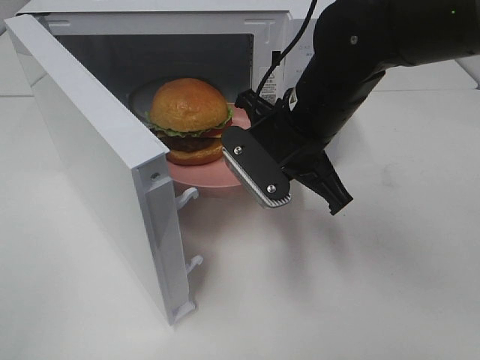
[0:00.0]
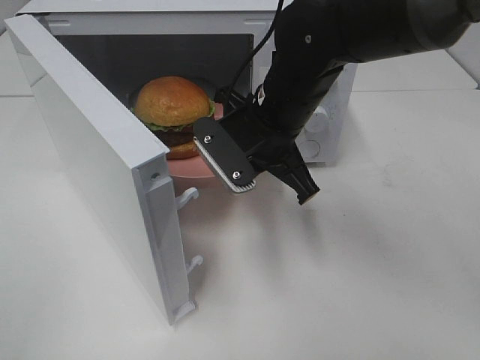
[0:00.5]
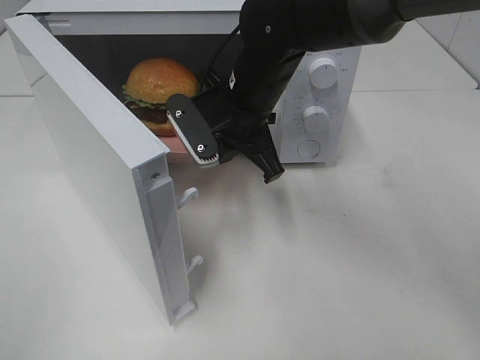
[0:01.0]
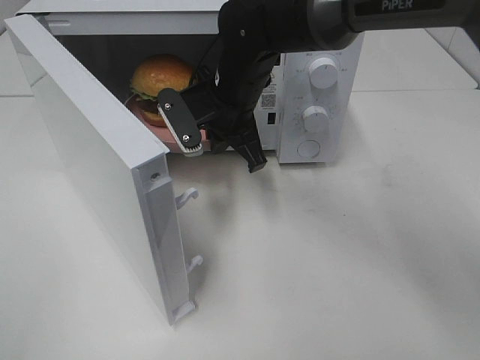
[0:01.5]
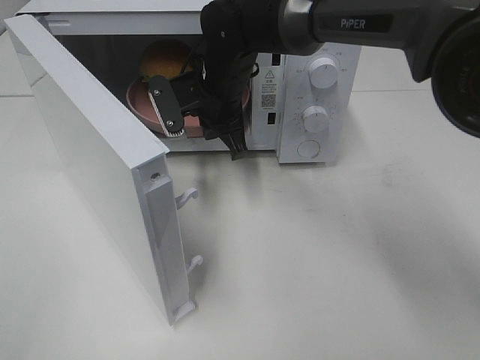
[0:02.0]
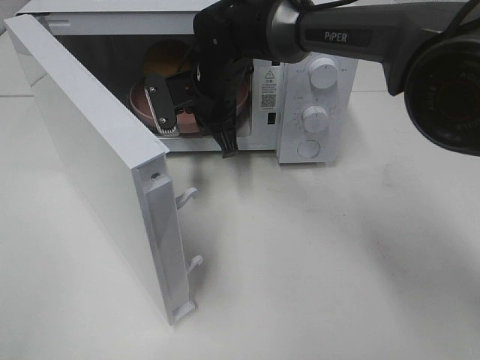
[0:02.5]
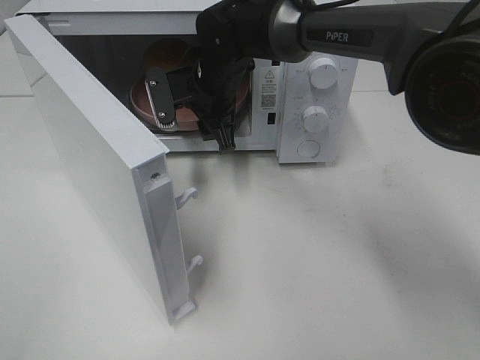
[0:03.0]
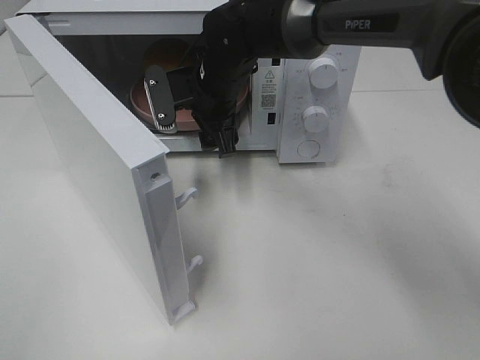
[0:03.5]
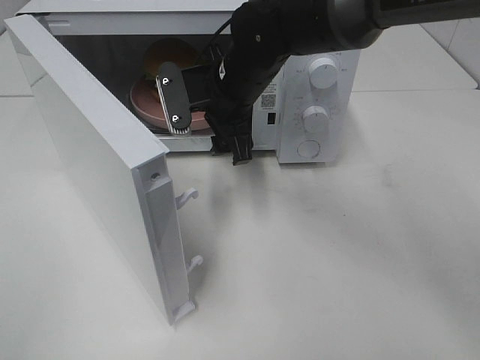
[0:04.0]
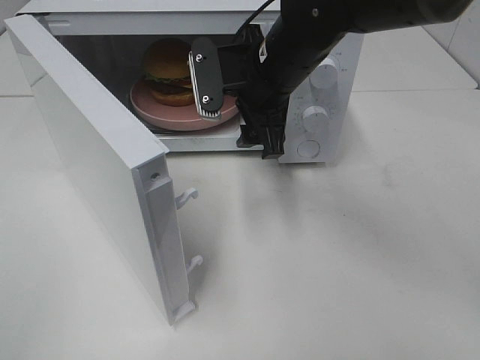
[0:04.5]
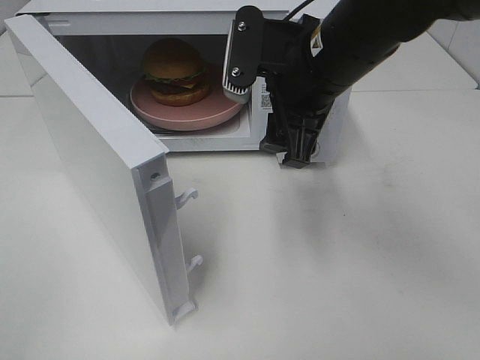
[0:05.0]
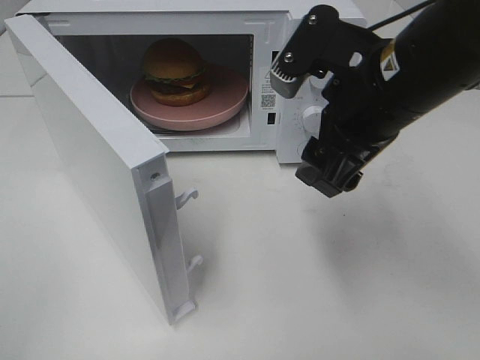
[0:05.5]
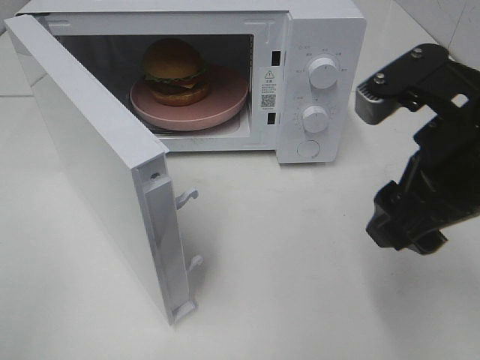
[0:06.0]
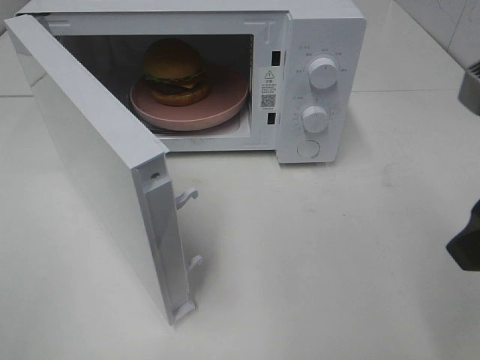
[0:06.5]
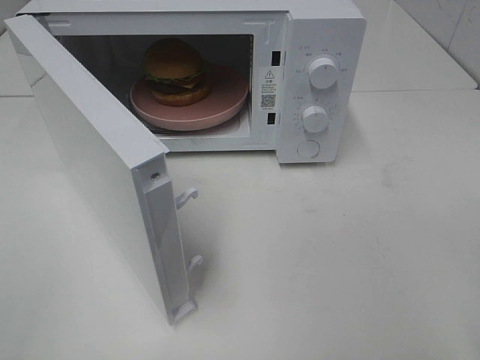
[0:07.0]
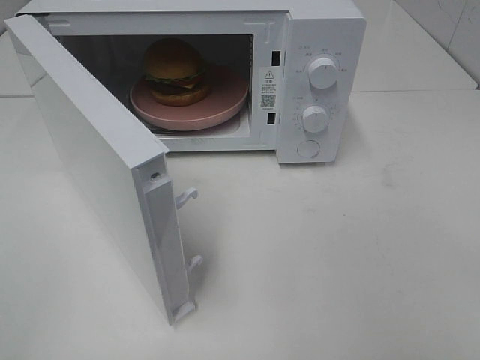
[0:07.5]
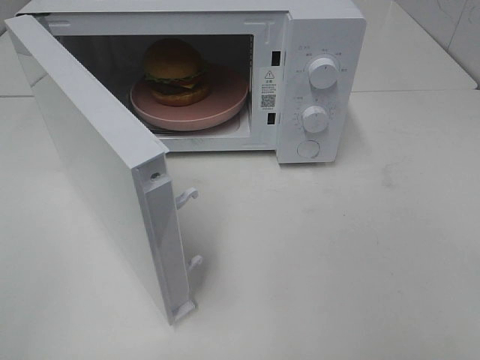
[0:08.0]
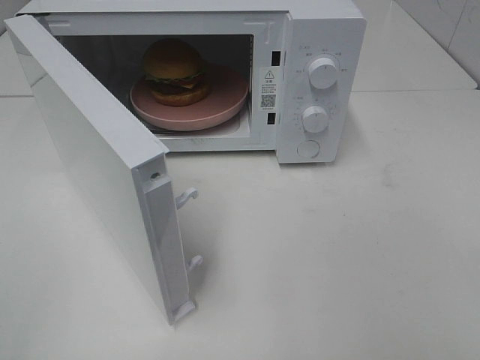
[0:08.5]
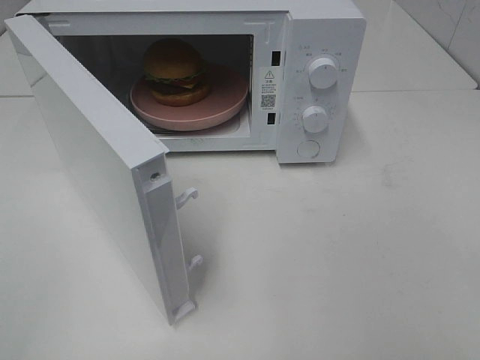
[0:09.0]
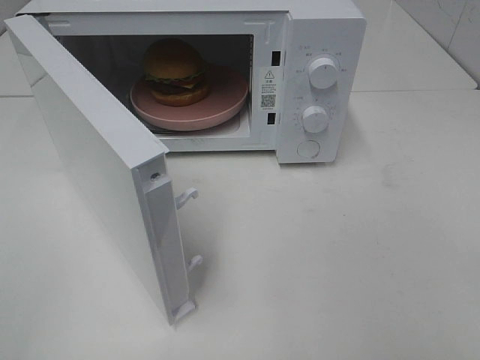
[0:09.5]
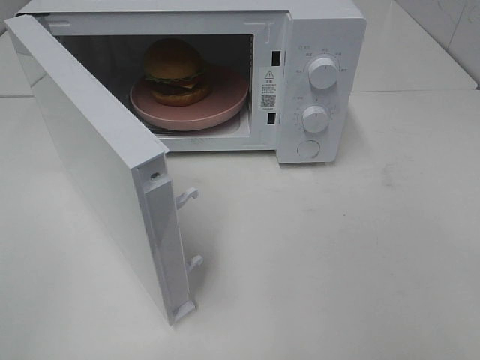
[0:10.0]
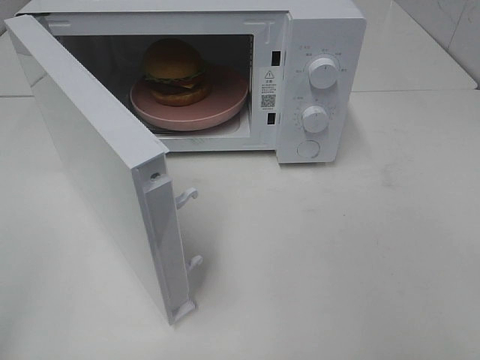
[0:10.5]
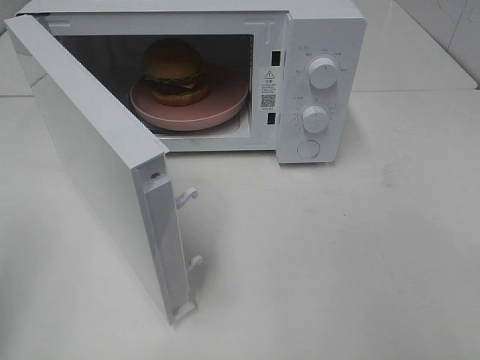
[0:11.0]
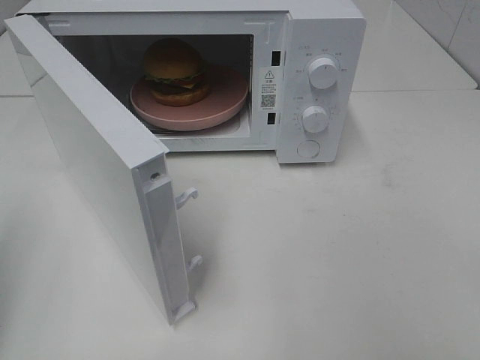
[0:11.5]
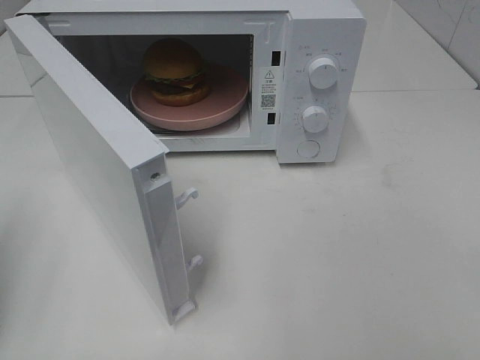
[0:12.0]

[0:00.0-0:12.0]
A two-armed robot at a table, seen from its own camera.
Task of the whole recording: Heat the burger.
Step, 0:00.0 to 0:02.5: Right hand: place the plate in the microwave.
0:00.0 to 0:02.0: The right gripper goes roughly 15 cm forward and to the left.
0:02.0 to 0:04.0: The right gripper moves some 5 cm, and opens.
0:04.0 to 0:06.0: The right gripper heads backward and to the right, covering about 25 cm.
0:06.0 to 0:08.0: The right gripper travels backward and to the right by roughly 20 cm.
0:08.0 to 0:10.0: Neither gripper changes place.

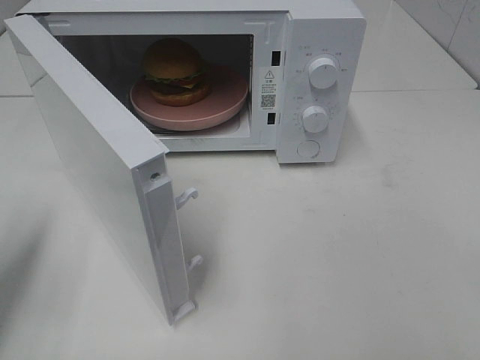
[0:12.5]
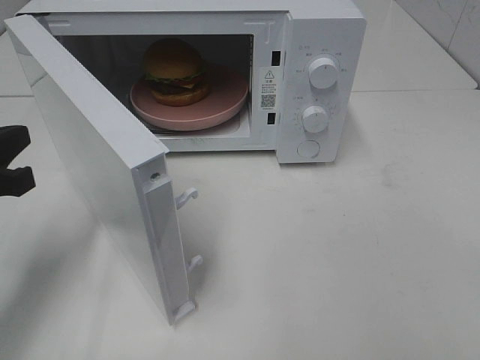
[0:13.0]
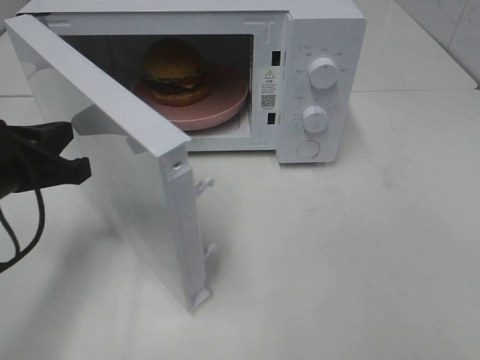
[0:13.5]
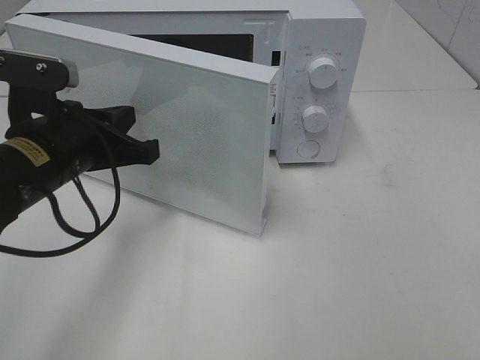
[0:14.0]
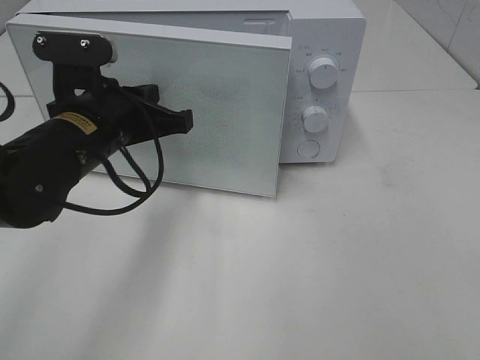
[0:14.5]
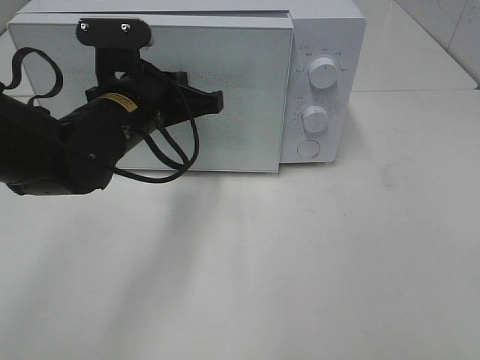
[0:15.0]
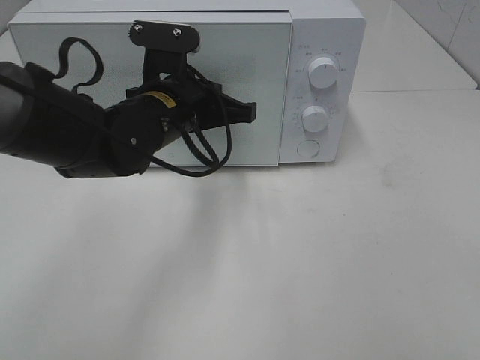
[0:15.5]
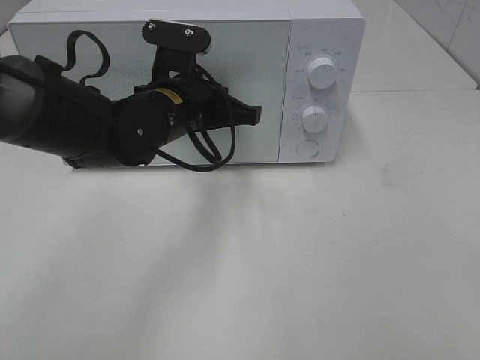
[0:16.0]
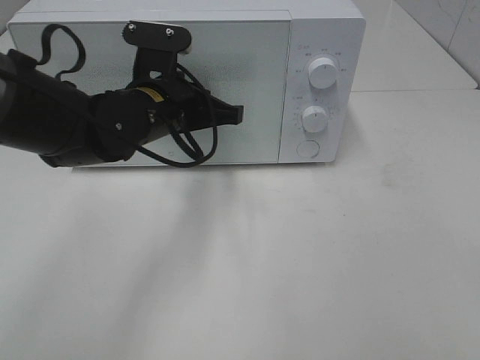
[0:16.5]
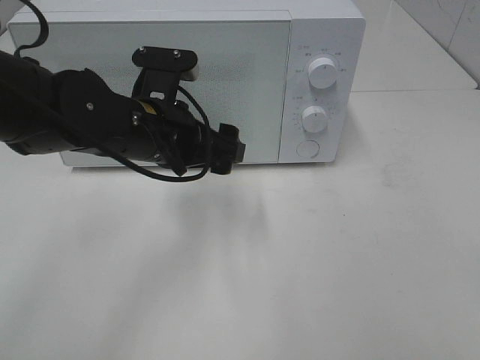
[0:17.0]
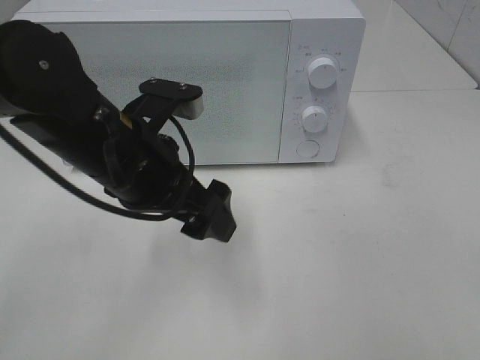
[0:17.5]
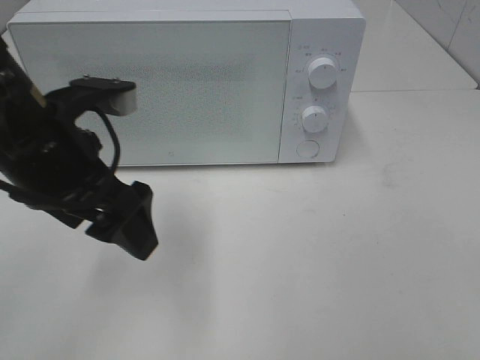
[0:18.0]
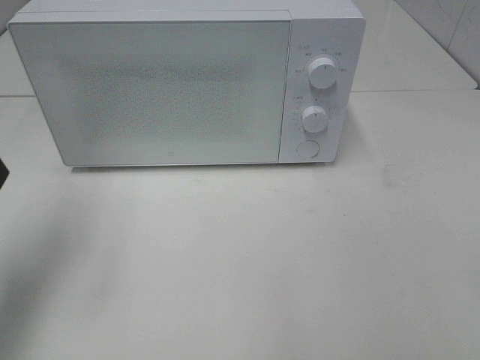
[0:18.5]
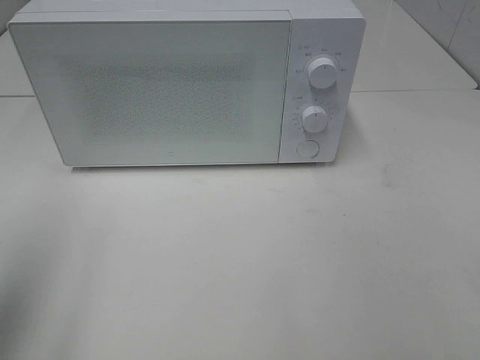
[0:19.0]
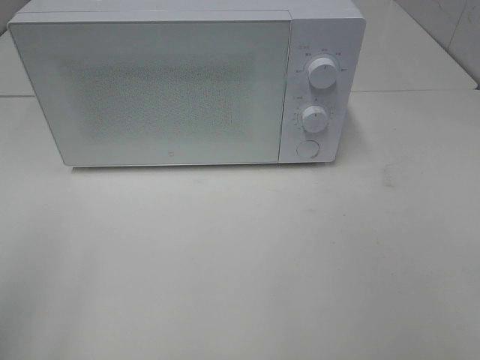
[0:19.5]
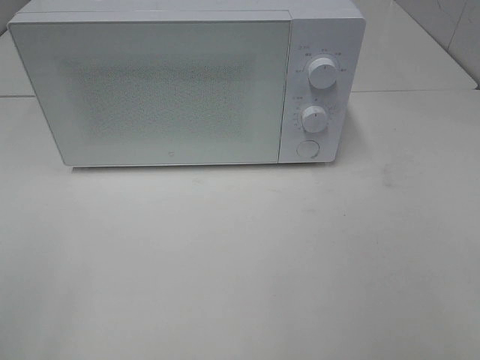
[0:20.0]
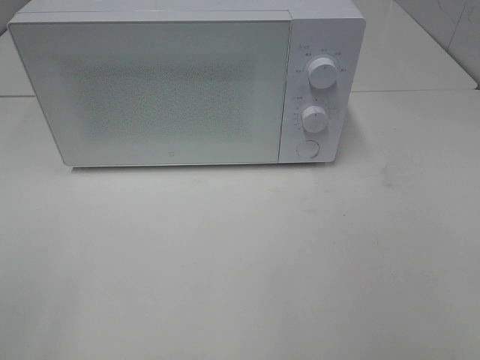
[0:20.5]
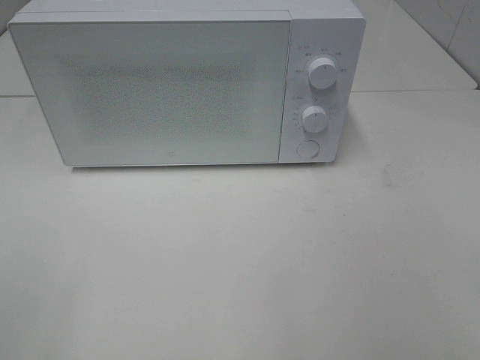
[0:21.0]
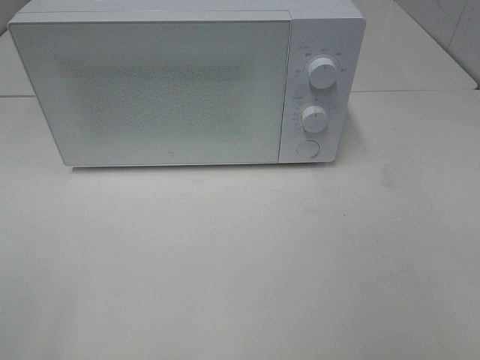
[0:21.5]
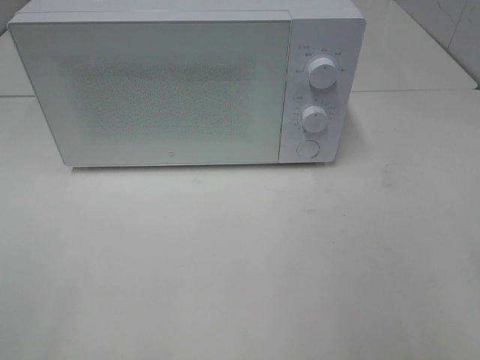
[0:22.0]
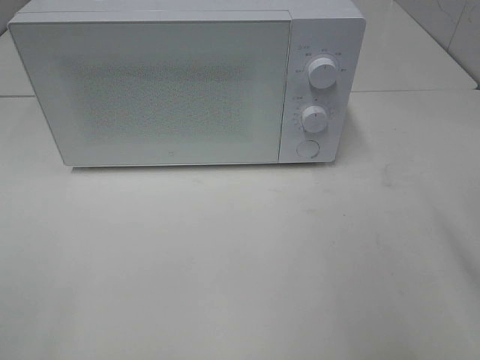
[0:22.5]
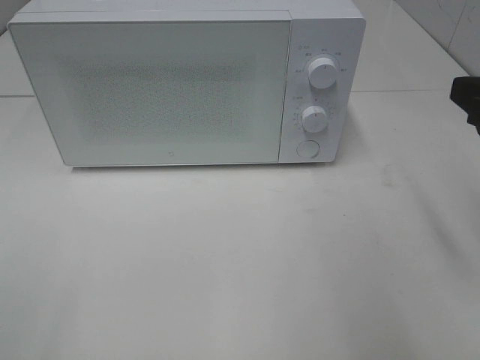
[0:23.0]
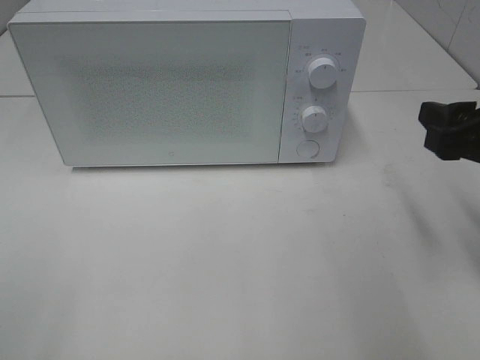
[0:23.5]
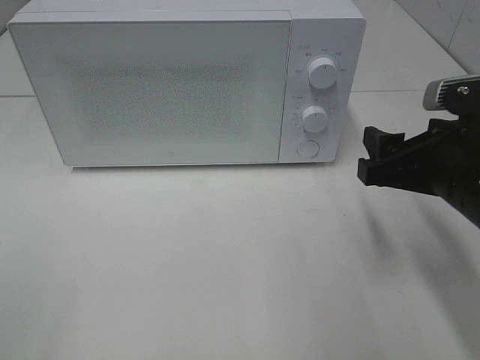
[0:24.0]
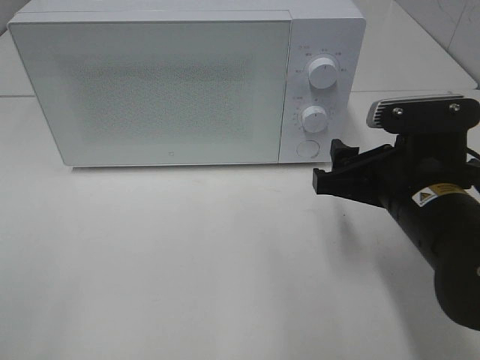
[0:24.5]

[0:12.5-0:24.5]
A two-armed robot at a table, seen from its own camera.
Task of the whole recording: Heat the burger.
Step, 0:12.5 to 0:16.5: Left hand: close the microwave door.
0:12.5 to 0:14.5: The left gripper moves to the right and forward, roughly 20 cm.
0:14.5 to 0:16.5: The left gripper moves to the right, roughly 5 cm.
0:16.5 to 0:18.5: The left gripper moves to the left, upward and backward, approximately 25 cm, and opens its fingers.
0:18.5 to 0:20.5: The left gripper travels backward by roughly 25 cm.
0:22.5 to 0:24.5: The right gripper moves downward, to the left and forward, roughly 15 cm.

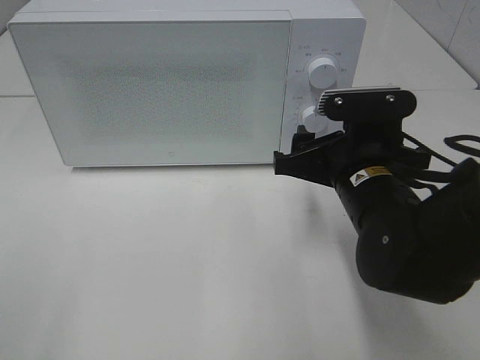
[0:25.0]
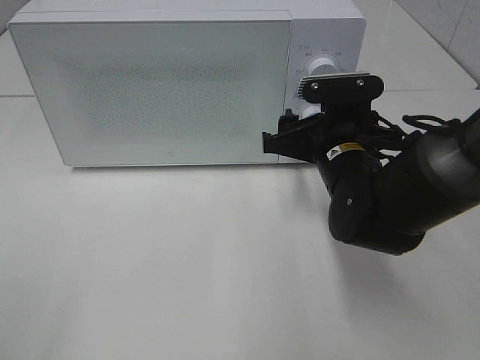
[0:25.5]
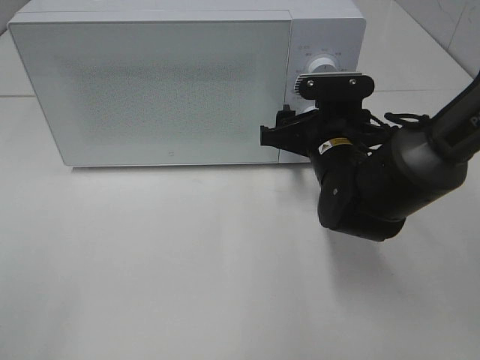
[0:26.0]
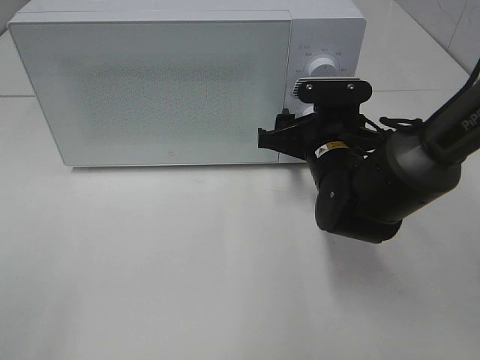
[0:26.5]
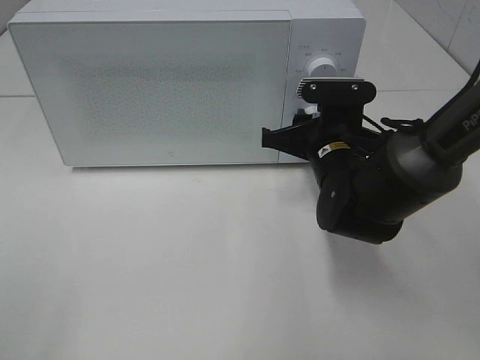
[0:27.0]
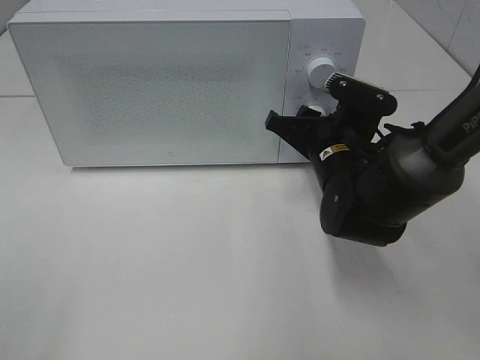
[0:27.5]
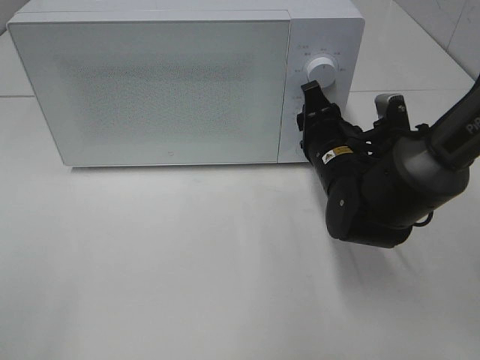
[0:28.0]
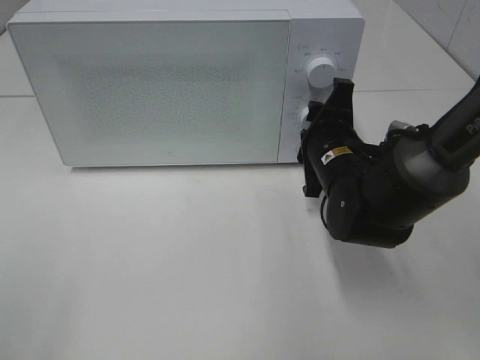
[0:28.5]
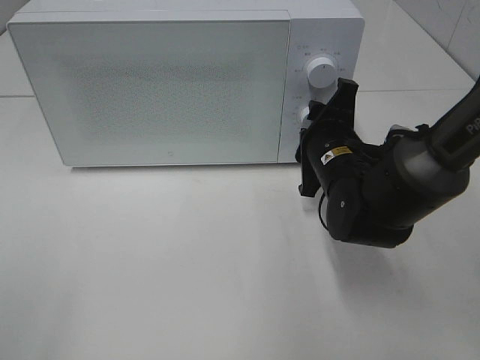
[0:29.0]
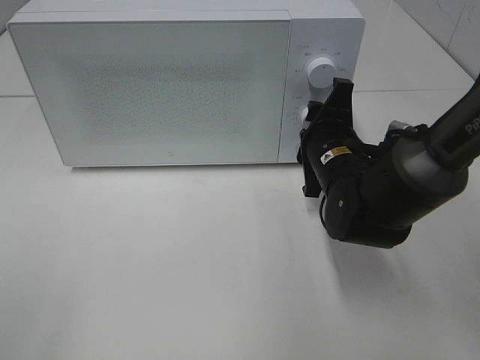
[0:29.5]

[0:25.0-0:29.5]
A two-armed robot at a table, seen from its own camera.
Task of the whole recording: Heat the burger.
0:25.0 to 0:27.0: The right gripper shifts about 10 cm forward, and closes its fingers.
